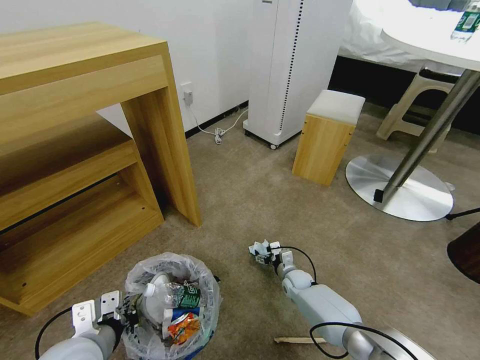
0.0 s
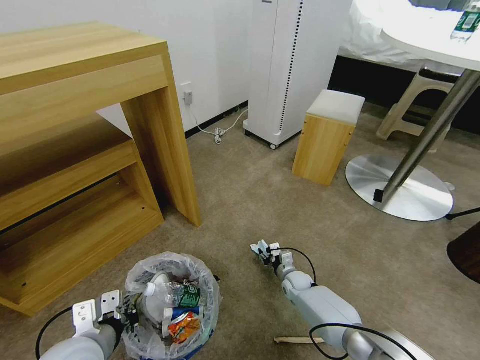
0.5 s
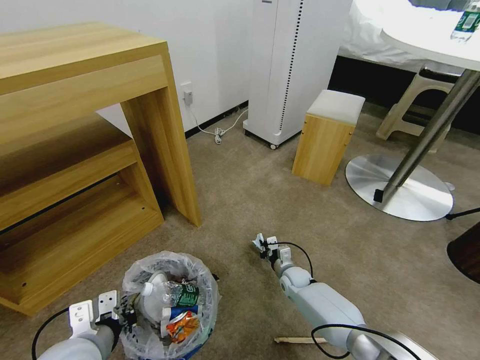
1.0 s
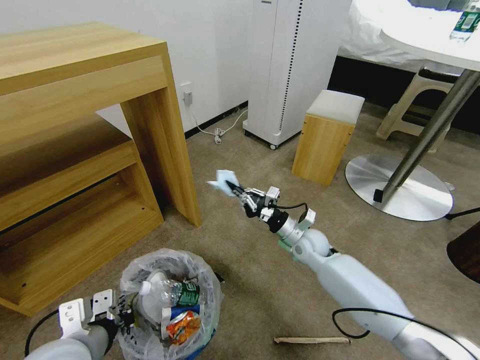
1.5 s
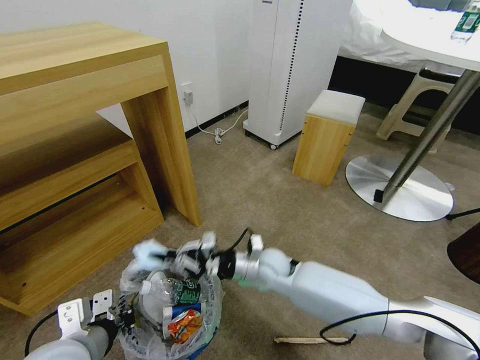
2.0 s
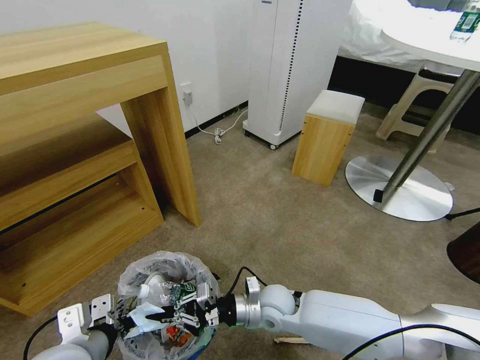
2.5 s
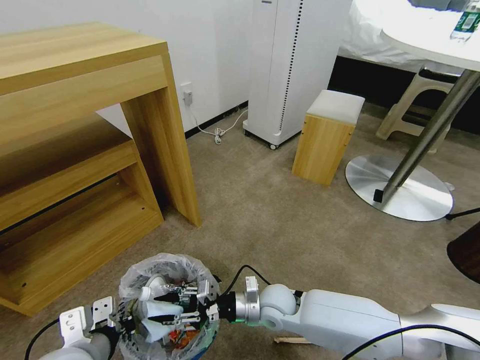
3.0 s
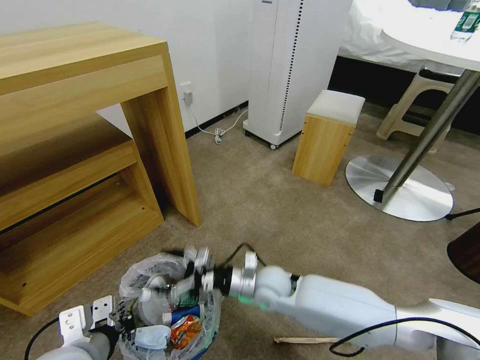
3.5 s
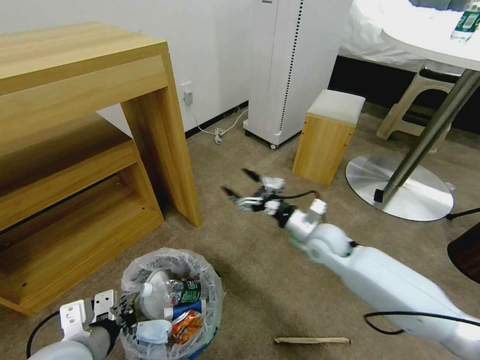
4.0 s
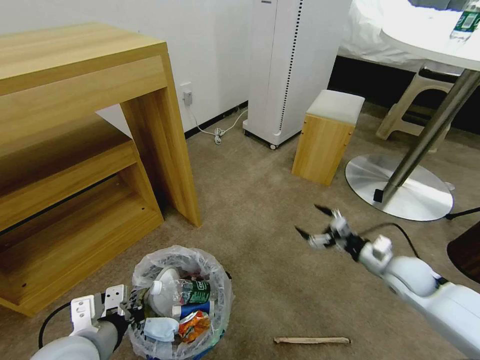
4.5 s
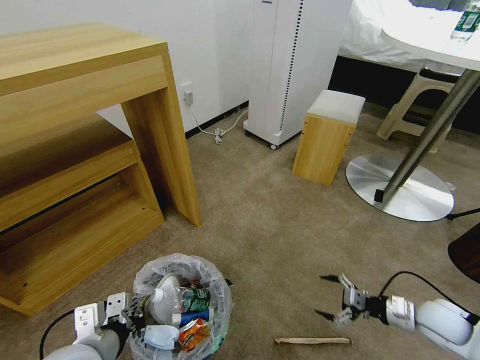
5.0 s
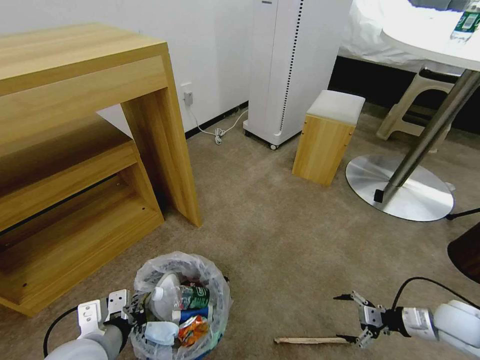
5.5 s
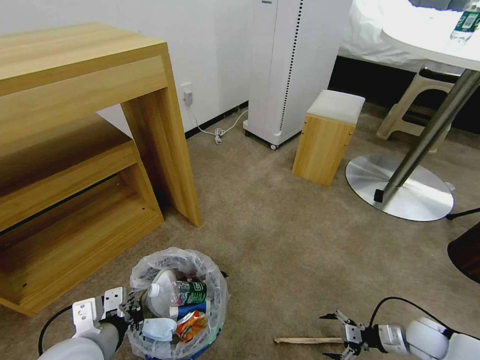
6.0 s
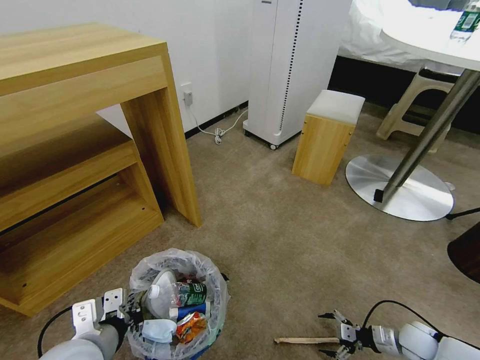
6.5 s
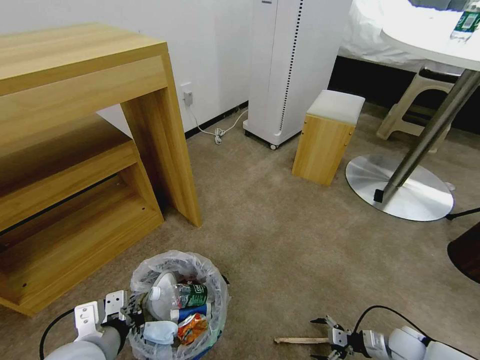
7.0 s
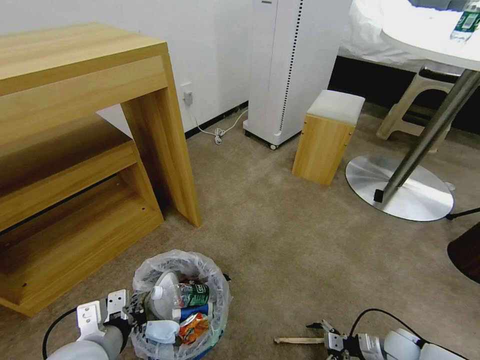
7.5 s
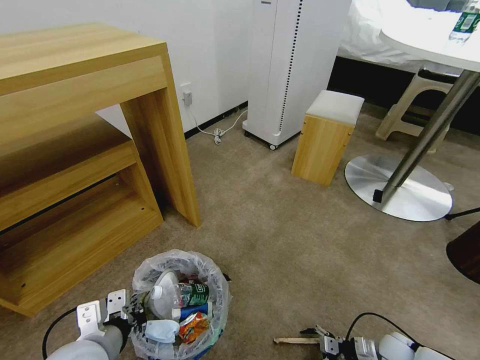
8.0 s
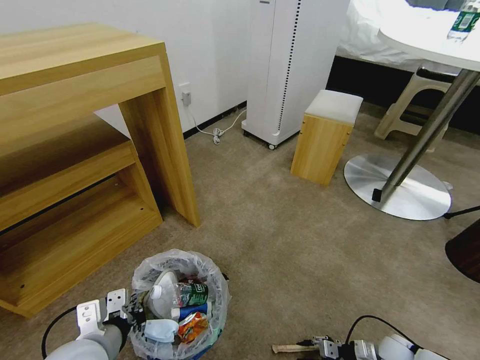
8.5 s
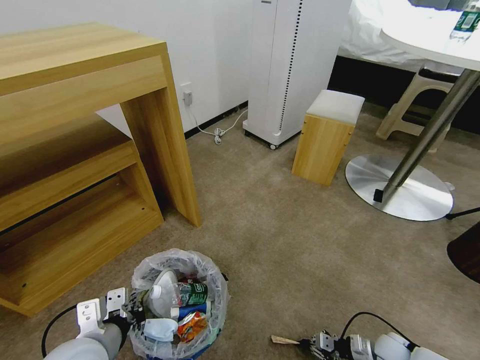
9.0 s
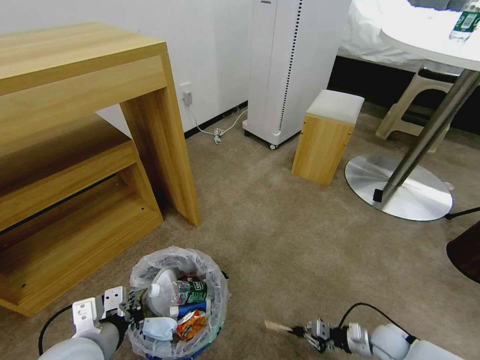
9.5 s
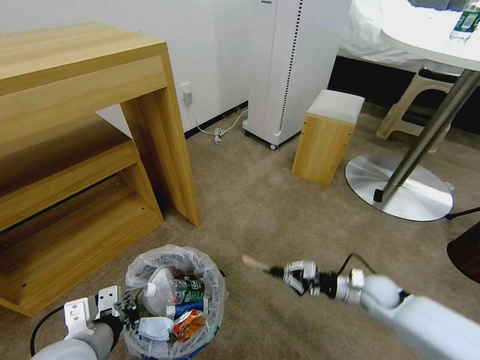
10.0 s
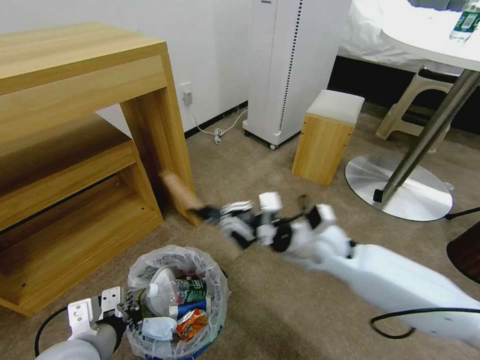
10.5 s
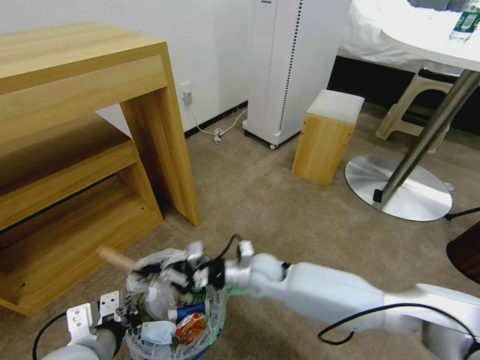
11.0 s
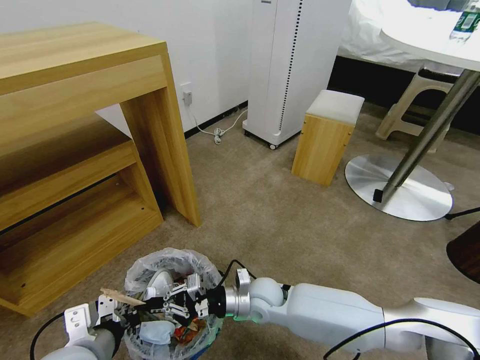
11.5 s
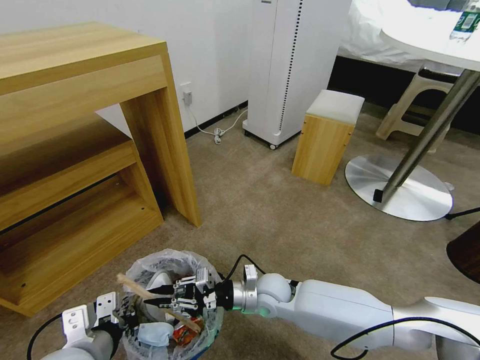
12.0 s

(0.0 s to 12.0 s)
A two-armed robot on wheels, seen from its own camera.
Task of the whole recording: Pick up the trash bin and place the garbage on the floor into it.
0.0 s - 2.0 s: The right gripper travels upward and to the left by about 25 cm, and closes its fingers.
2.0 s - 4.0 s: The right gripper is displaced to the right and upward by about 15 cm, and opens its fingers.
4.0 s - 6.0 s: The right gripper moves to the right, downward and backward, some 35 cm.
6.0 s - 8.0 s: The right gripper heads downward, covering some 10 cm.
8.0 s - 10.0 s: The right gripper travels upward, to the left and forward by approximately 15 cm, and closes its fingers.
10.0 s - 12.0 s: The right gripper is displaced to the left by some 30 cm.

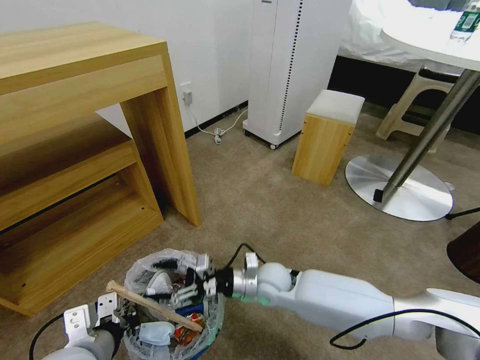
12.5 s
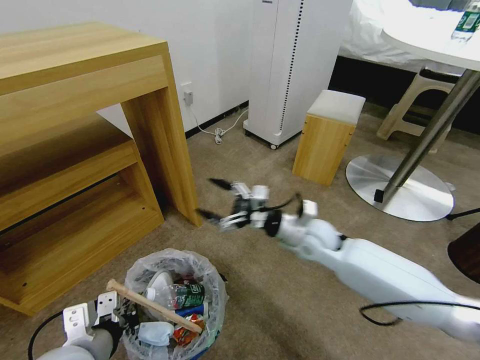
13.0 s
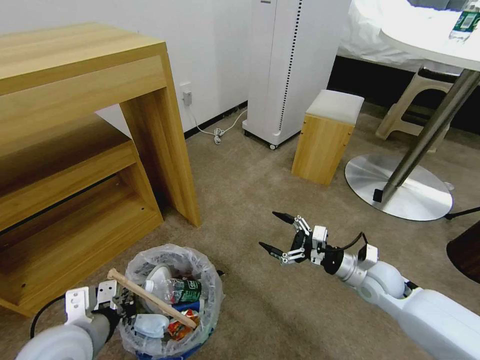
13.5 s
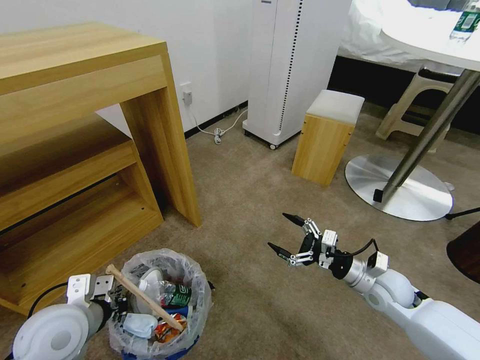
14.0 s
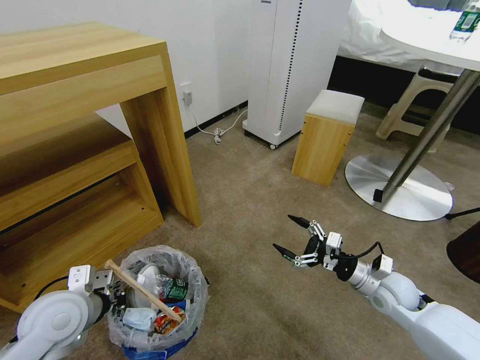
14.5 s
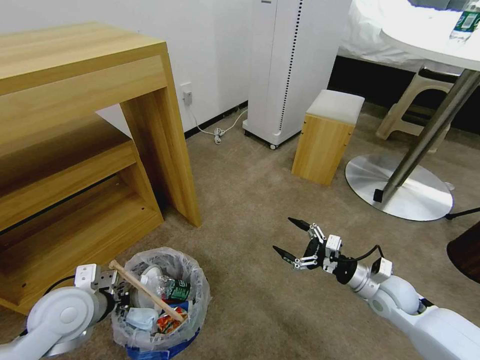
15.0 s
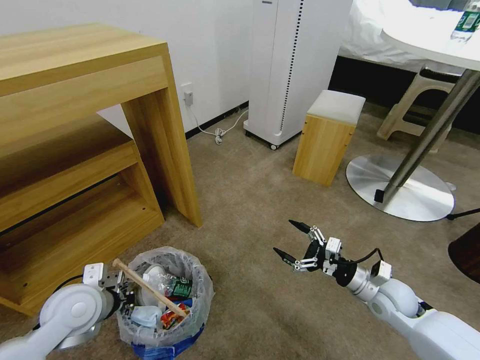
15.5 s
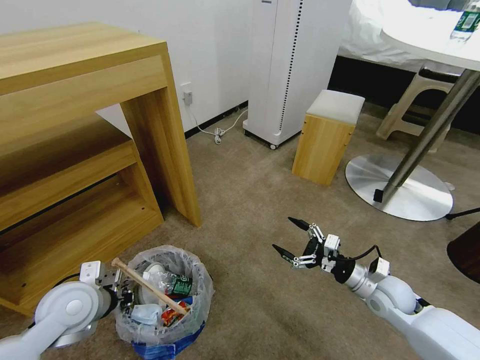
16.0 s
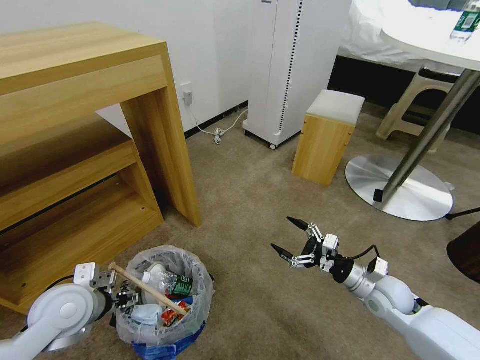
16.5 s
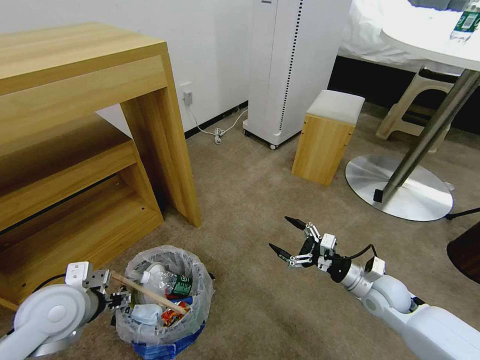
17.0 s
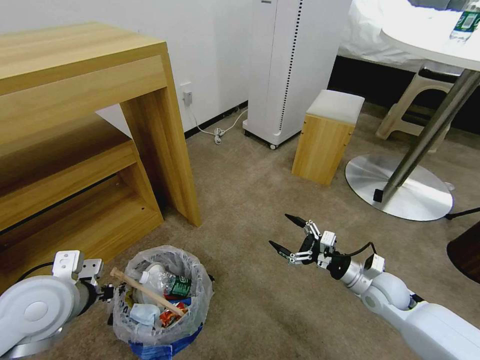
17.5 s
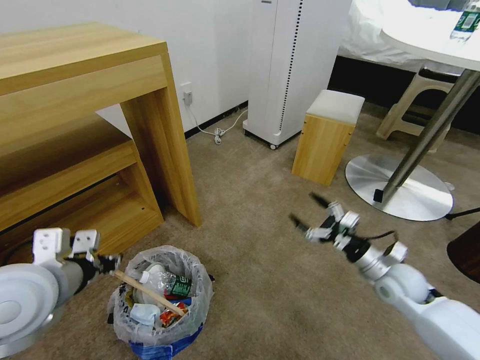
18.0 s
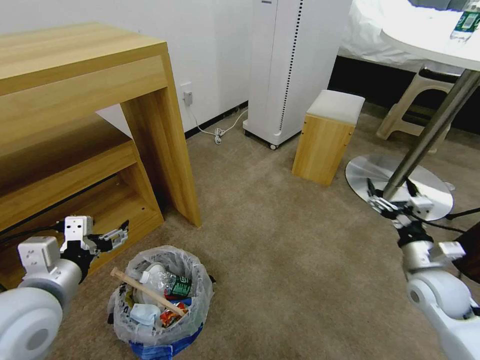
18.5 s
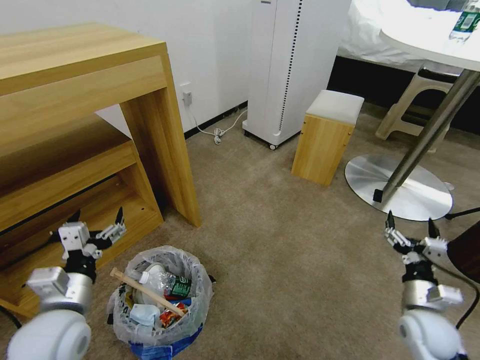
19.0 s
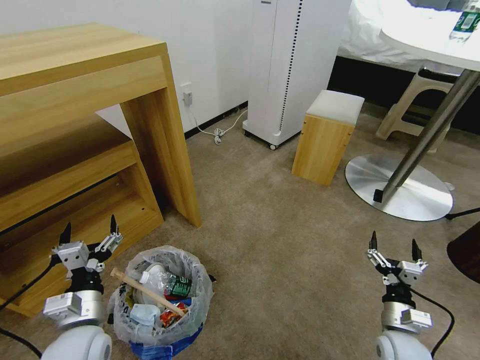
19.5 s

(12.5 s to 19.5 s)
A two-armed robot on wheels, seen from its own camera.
Task of the whole recording: Pick up the trash bin and place the garbage on the floor into it.
12.5 s - 14.5 s: The left gripper heads forward and to the left, covering about 10 cm. The right gripper goes about 25 cm to the right.
14.5 s - 16.0 s: There are only small adjustments of the grippers.
16.0 s - 17.5 s: The left gripper heads upward, covering some 10 cm, and opens and closes again.
17.5 s - 19.5 s: The left gripper is displaced downward by approximately 10 cm, and opens up. The right gripper is displaced backward and downward by approximately 15 cm.
